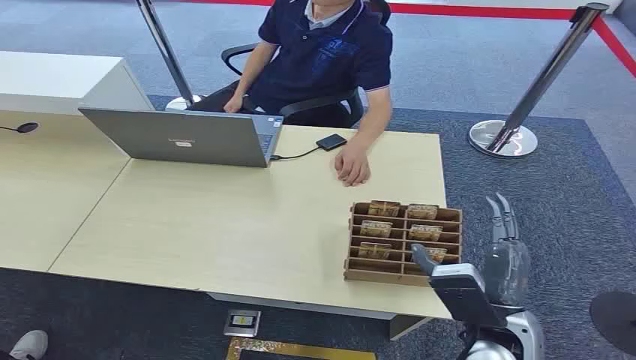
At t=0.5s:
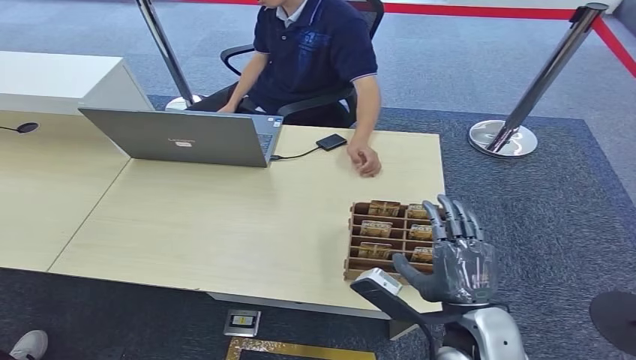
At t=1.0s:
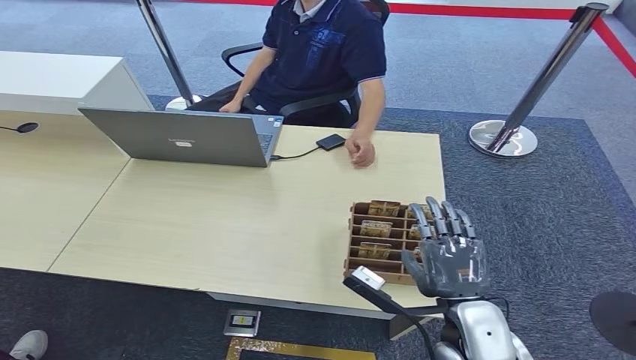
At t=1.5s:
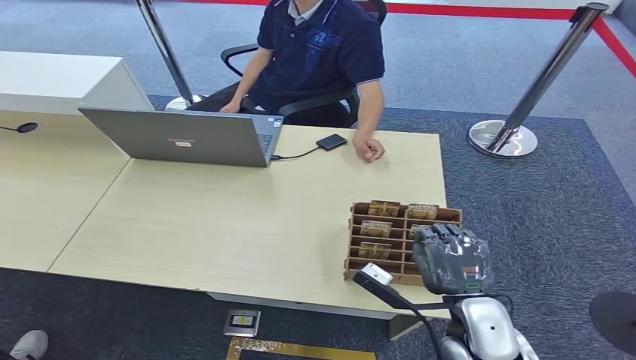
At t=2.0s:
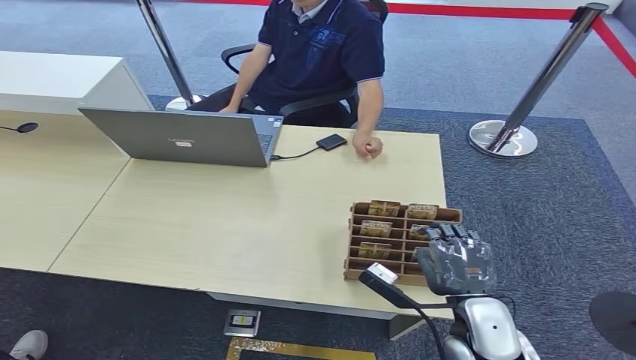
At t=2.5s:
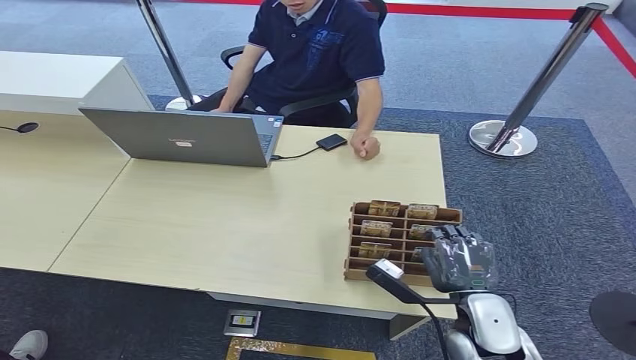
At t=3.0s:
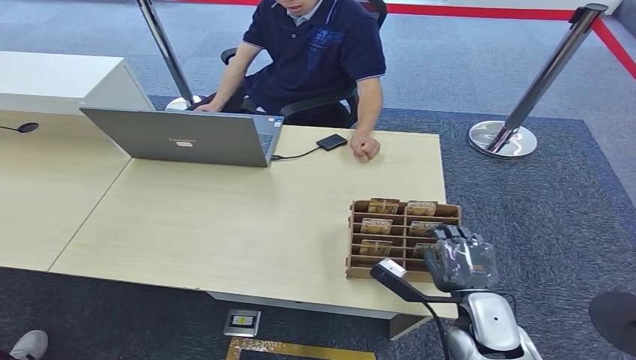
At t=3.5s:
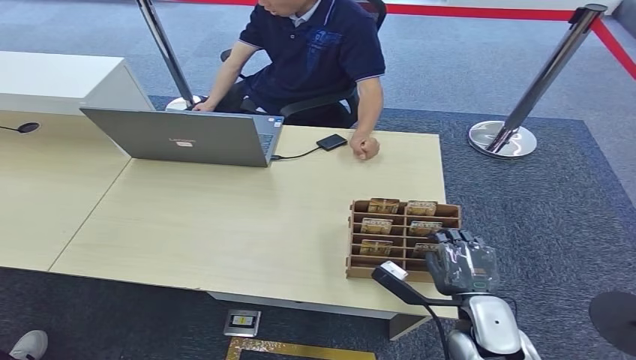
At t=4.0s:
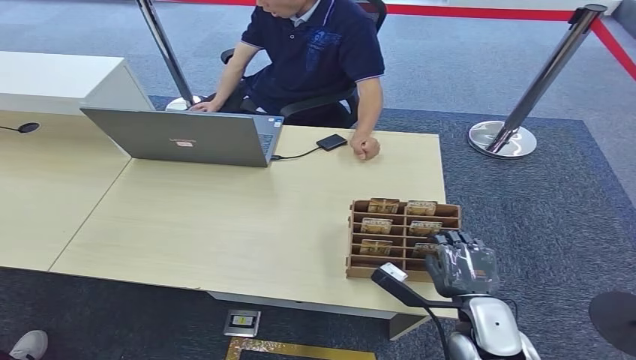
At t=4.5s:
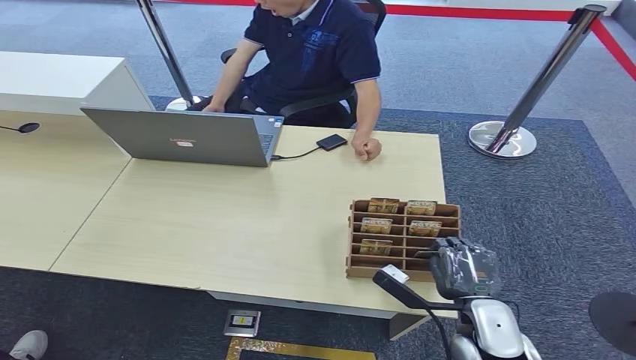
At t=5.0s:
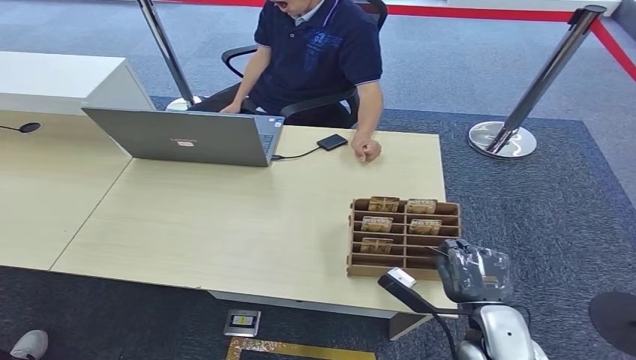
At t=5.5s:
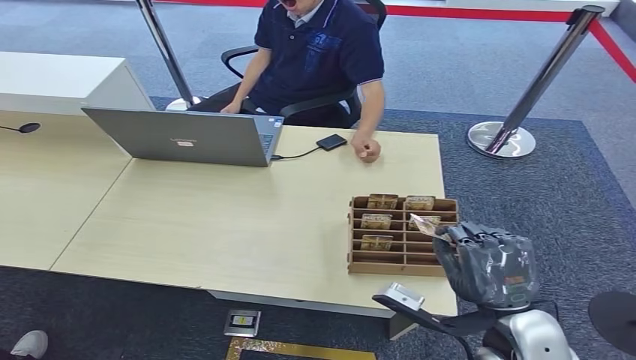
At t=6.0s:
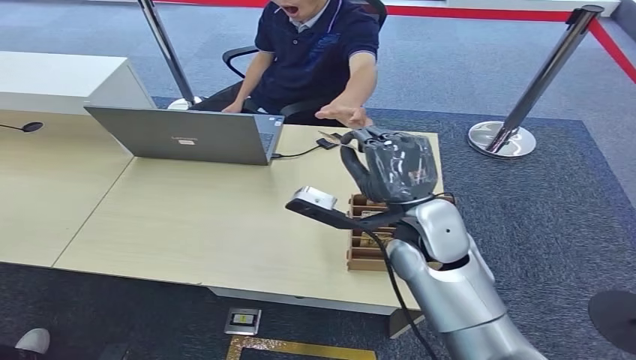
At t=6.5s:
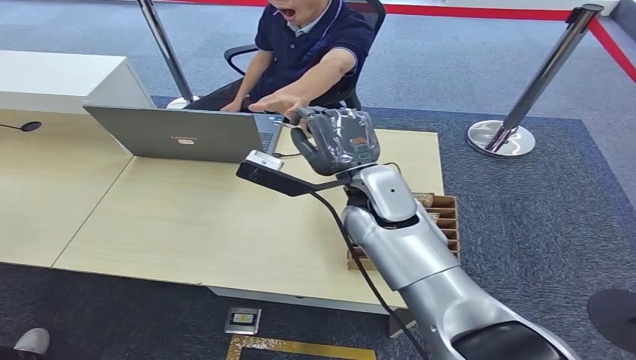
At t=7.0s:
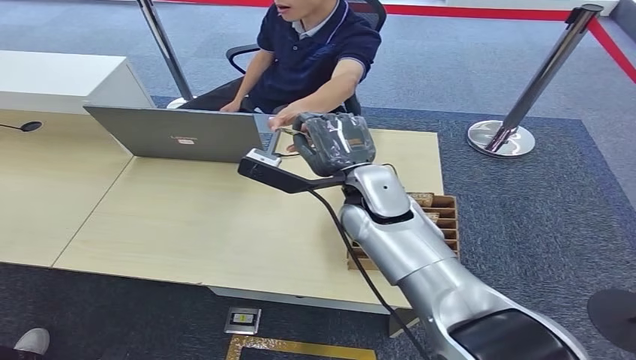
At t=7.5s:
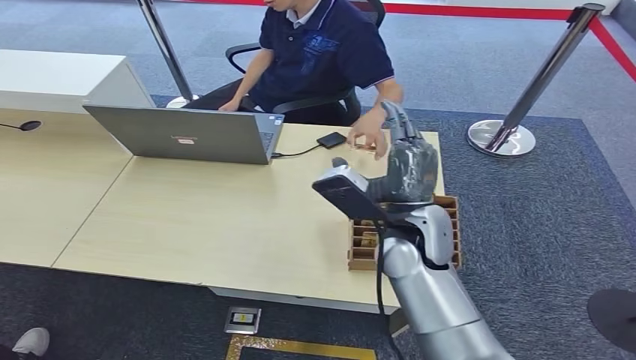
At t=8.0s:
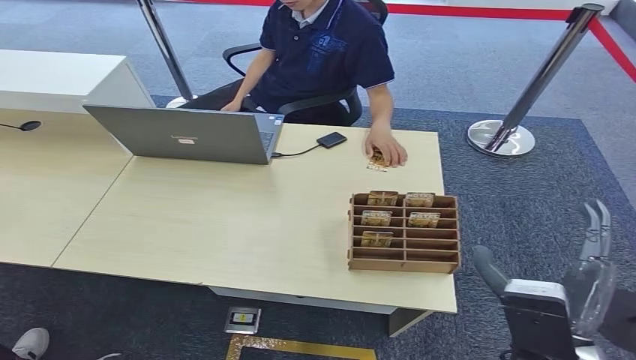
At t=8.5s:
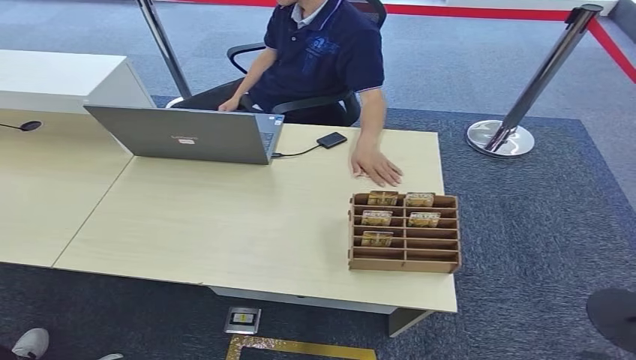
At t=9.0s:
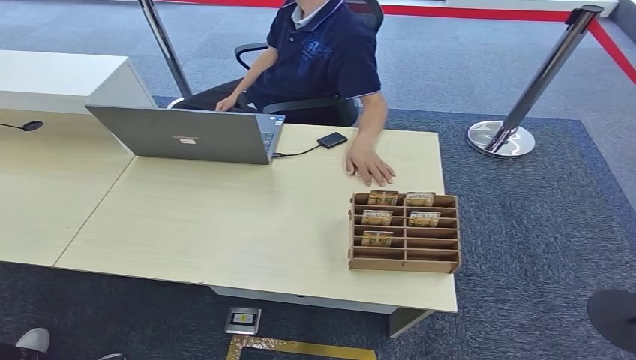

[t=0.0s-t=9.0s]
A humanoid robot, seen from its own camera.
Step, t=0.0s to t=4.5s: Pick up the key card from the card box.
Step, t=5.5s to t=9.0s: Hand the key card to the target.
t=2.0s to t=4.5s: The hands move only a little.
t=7.0s to t=9.0s: The right hand is displaced backward, downward and to the right by roughly 50 cm.
